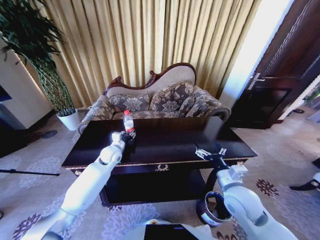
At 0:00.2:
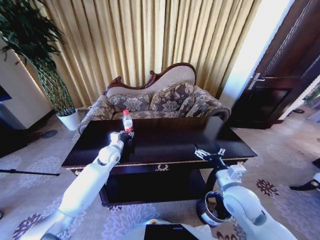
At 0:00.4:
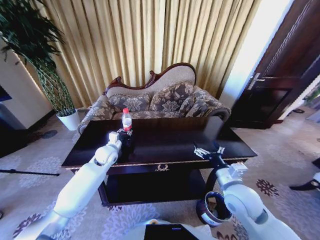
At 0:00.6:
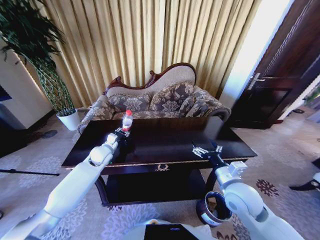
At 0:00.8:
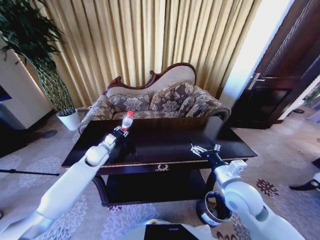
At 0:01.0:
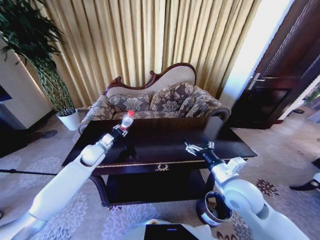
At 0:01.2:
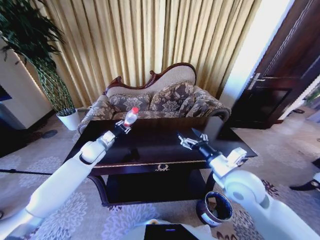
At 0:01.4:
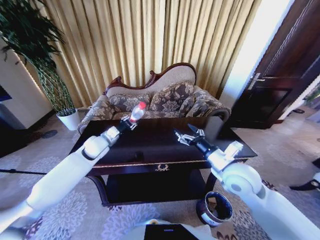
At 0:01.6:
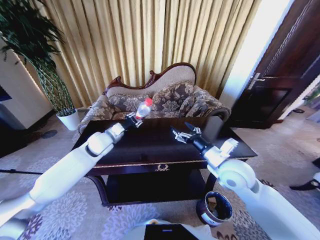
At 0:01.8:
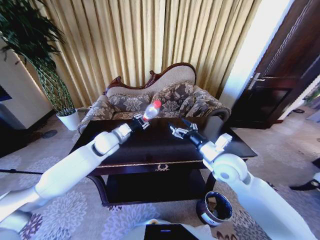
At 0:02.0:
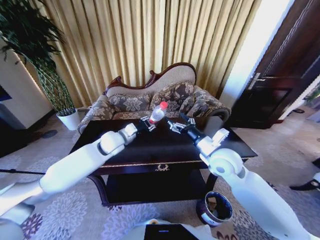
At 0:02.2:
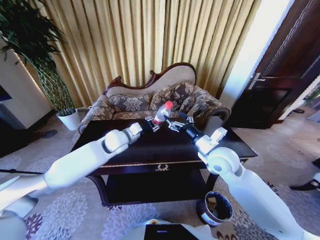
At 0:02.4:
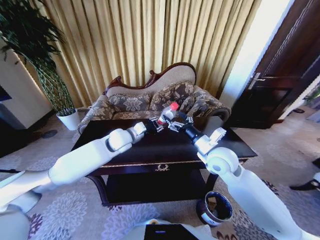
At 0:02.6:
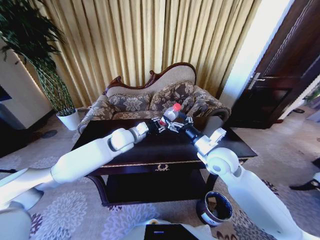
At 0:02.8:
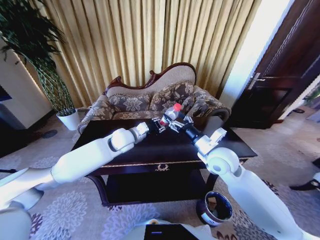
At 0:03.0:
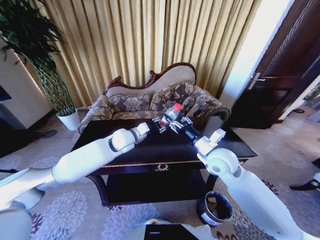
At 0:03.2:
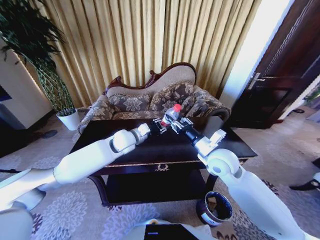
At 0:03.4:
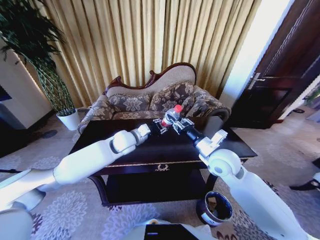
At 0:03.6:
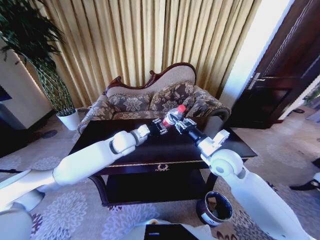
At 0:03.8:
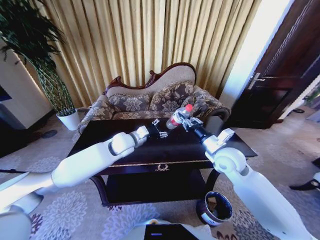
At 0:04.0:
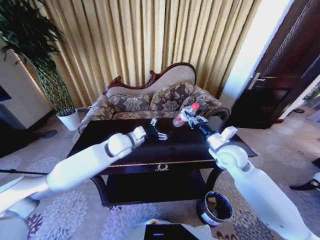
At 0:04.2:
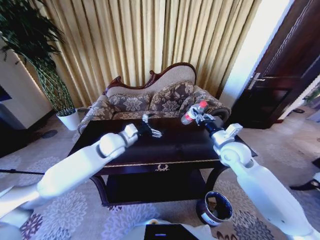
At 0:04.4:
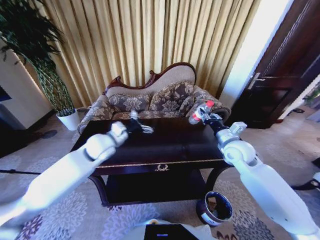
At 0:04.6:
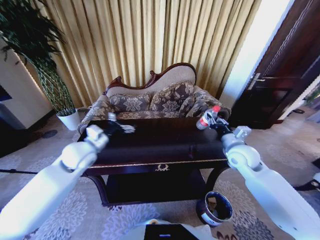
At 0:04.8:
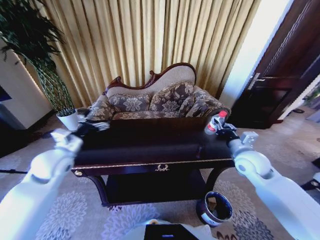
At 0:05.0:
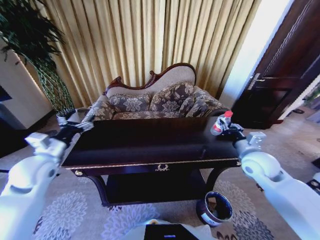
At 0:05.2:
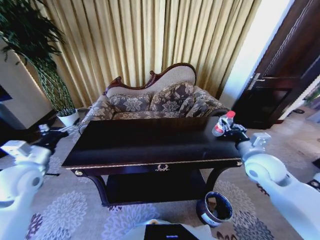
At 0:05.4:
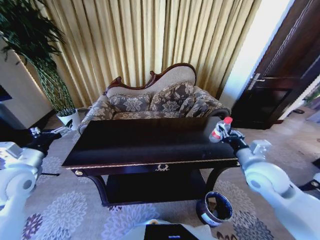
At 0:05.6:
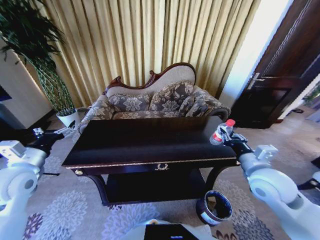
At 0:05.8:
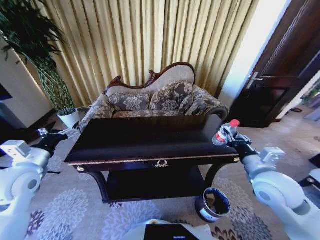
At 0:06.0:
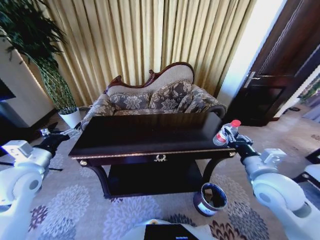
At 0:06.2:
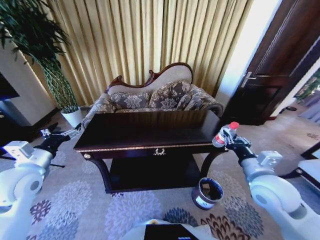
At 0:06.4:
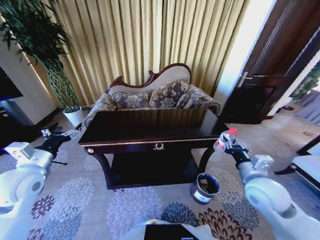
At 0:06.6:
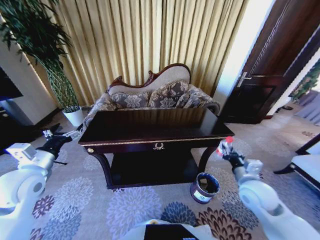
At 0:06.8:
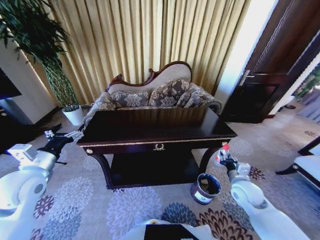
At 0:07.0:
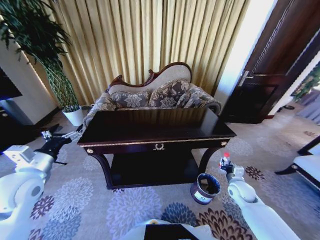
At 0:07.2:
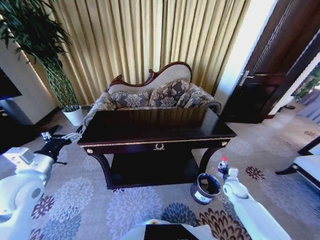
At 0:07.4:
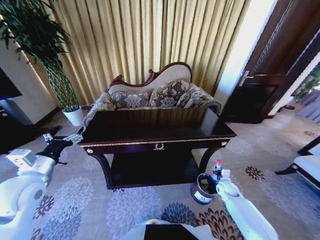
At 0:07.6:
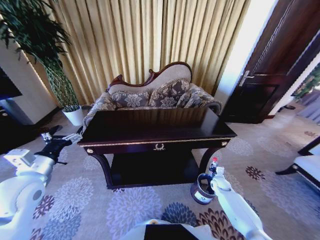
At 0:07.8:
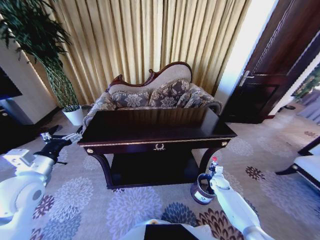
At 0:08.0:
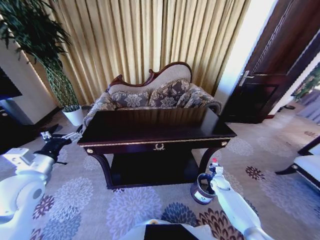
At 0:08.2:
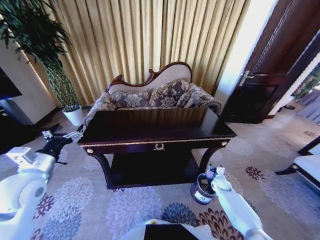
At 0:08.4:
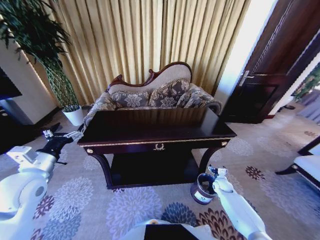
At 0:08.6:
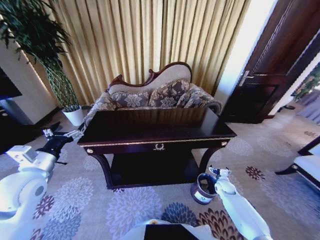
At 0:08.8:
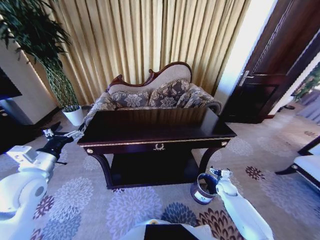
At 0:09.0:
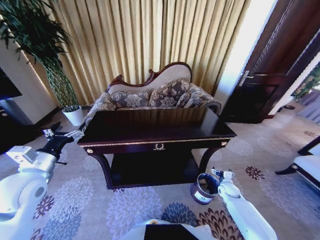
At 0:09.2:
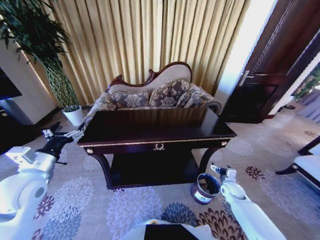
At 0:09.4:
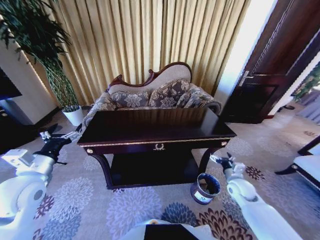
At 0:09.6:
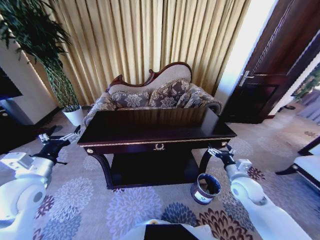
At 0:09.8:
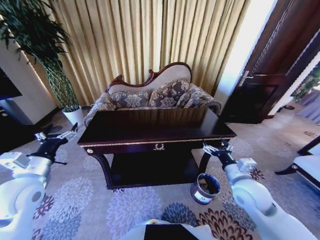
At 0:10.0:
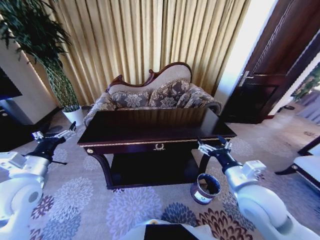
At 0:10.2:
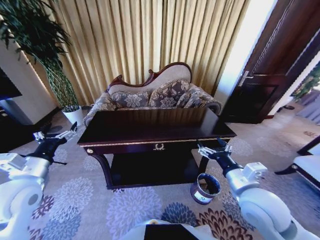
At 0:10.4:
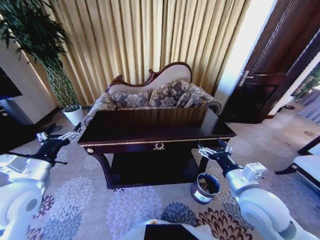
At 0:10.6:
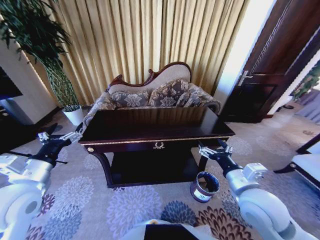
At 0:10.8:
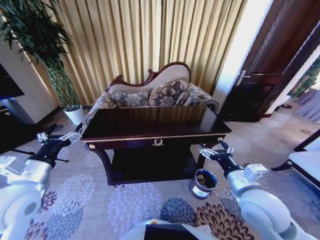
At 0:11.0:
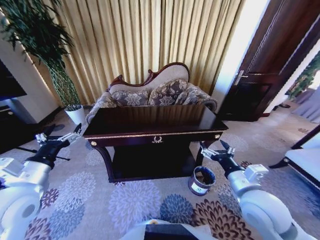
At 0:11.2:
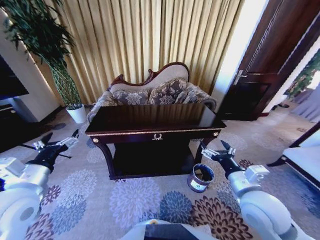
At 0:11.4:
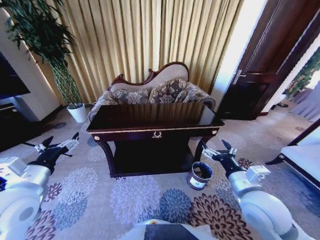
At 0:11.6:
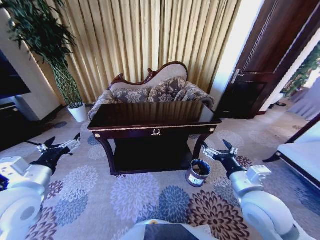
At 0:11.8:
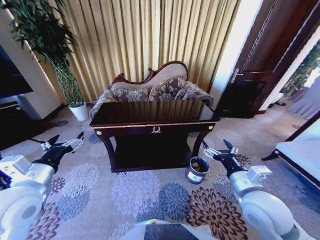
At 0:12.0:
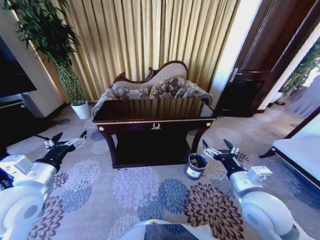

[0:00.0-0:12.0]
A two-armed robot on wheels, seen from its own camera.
Task of the whole recording: Move to the front of the table and place the trash on the table into the trash bin.
0:00.0 to 0:01.6: The right gripper heads upward and forward, covering roughly 10 cm; the left gripper shifts about 10 cm upward, and closes.
0:01.6 to 0:03.0: The right gripper ends up roughly 5 cm from where it was, and closes up. The left gripper moves to the right, about 10 cm.
0:03.0 to 0:04.4: The left gripper heads to the left, covering approximately 10 cm, and opens. The right gripper shifts roughly 10 cm to the right, and closes.
0:04.4 to 0:06.0: The right gripper is displaced backward by roughly 15 cm. Meanwhile the left gripper travels to the left and backward by some 20 cm.
0:06.0 to 0:07.6: The right gripper heads downward, covering about 35 cm.
0:07.6 to 0:09.0: The right gripper opens its fingers.
0:09.0 to 0:10.4: The right gripper travels upward, to the left and backward by about 35 cm.

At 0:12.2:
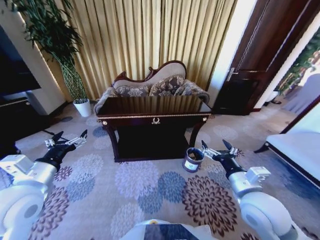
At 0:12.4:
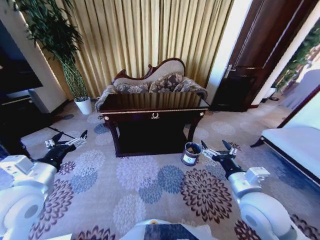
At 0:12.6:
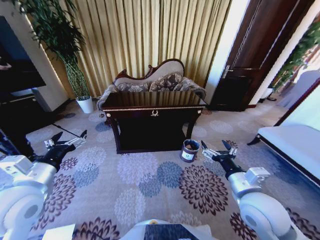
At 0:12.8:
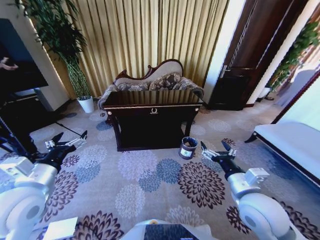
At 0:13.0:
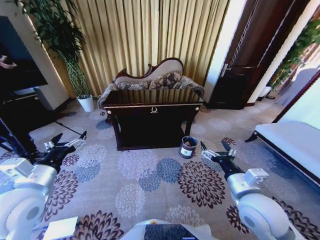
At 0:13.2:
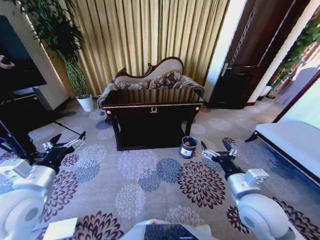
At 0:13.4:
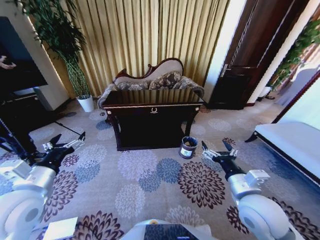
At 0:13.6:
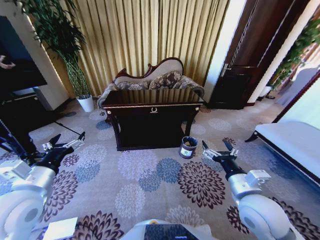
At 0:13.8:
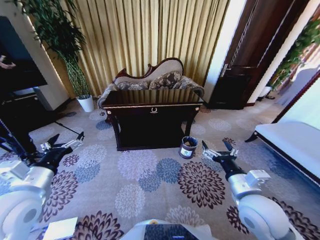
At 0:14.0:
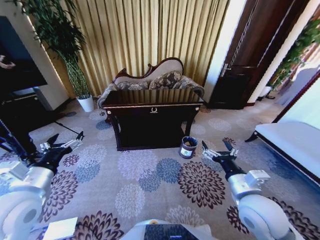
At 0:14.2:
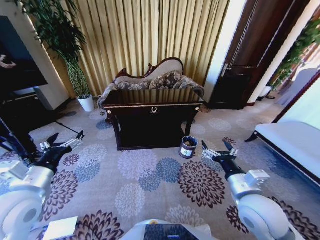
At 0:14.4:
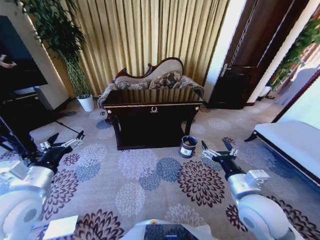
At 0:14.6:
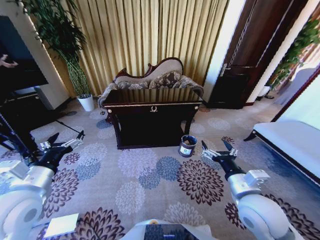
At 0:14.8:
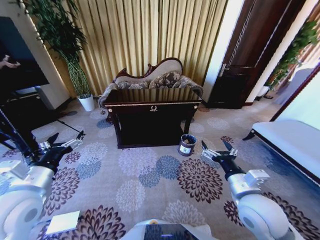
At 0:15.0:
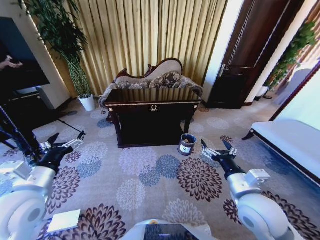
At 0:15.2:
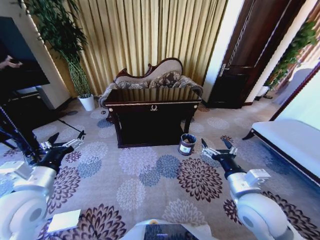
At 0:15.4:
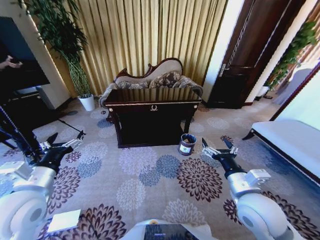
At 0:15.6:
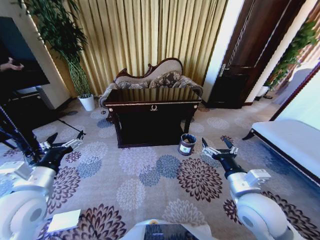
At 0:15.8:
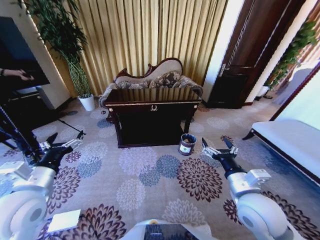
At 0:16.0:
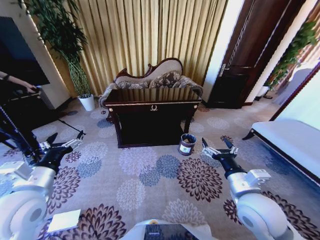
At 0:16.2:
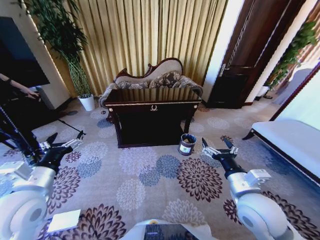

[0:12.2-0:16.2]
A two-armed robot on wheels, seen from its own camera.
Task of the whole recording: Move to the front of the table and place the trash on the table into the trash bin.
0:13.6 to 0:16.2: Both grippers stay put.
